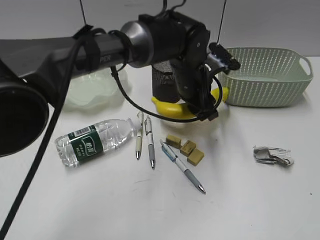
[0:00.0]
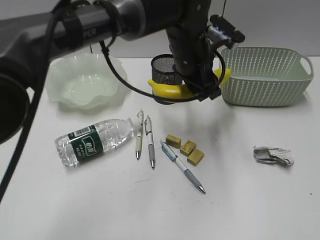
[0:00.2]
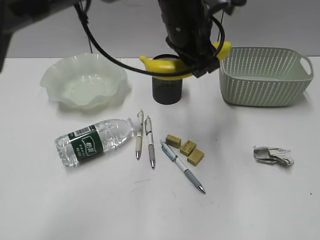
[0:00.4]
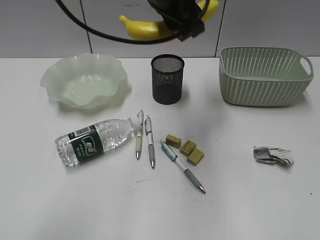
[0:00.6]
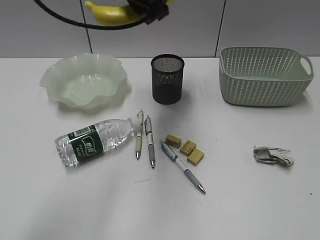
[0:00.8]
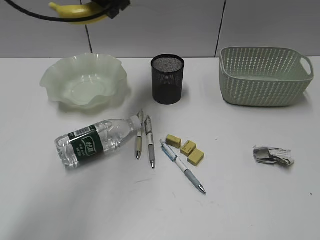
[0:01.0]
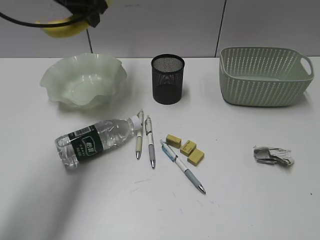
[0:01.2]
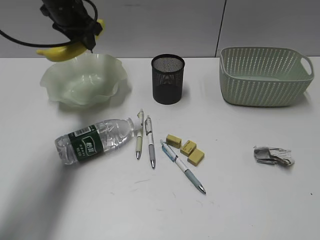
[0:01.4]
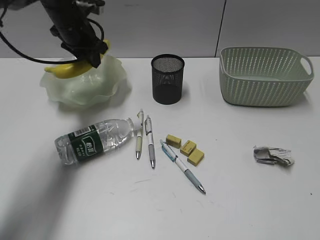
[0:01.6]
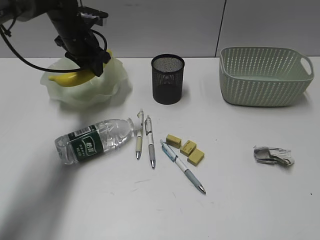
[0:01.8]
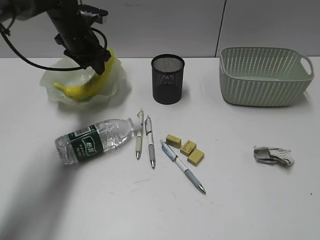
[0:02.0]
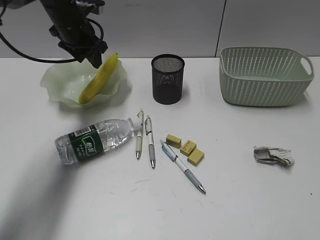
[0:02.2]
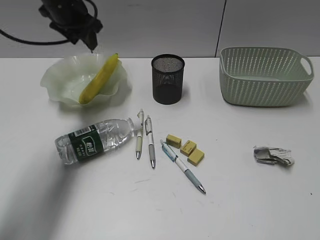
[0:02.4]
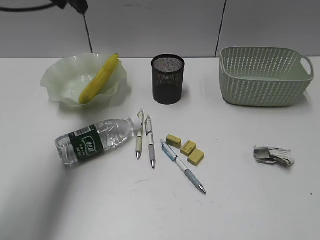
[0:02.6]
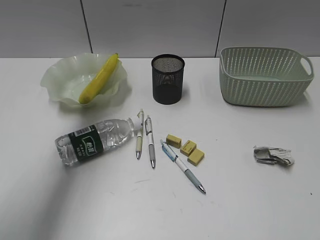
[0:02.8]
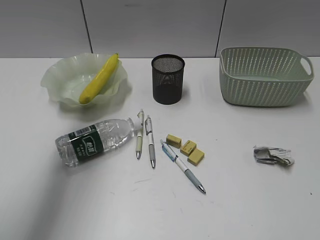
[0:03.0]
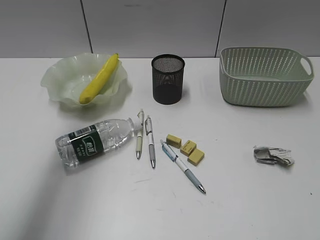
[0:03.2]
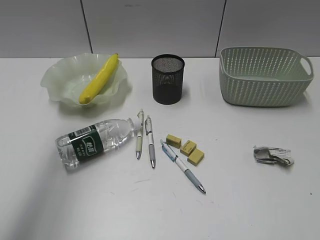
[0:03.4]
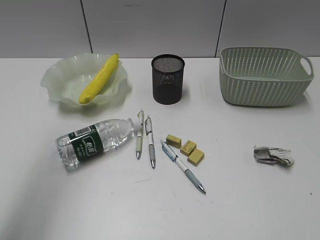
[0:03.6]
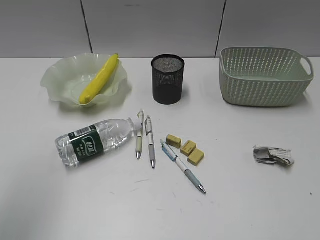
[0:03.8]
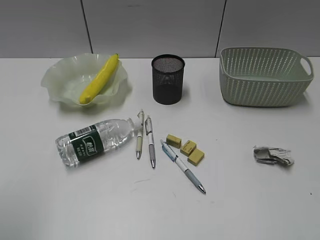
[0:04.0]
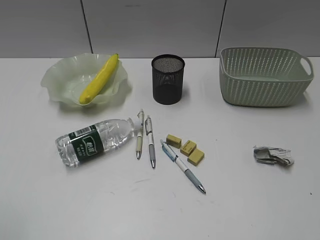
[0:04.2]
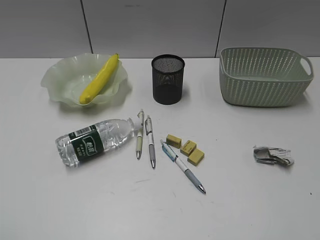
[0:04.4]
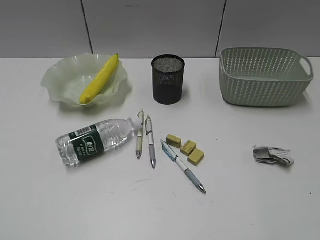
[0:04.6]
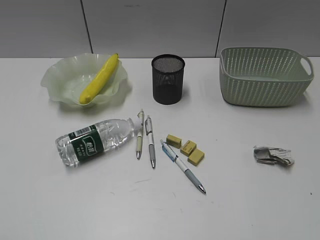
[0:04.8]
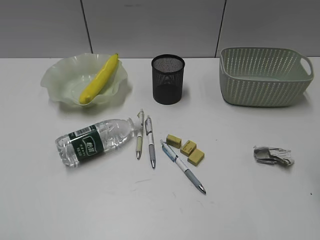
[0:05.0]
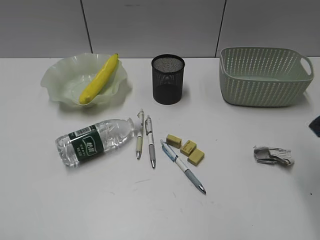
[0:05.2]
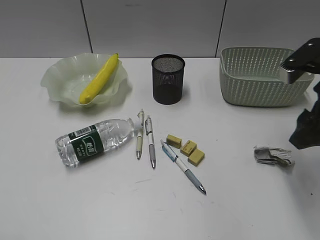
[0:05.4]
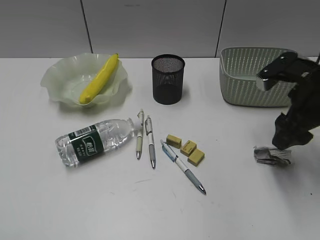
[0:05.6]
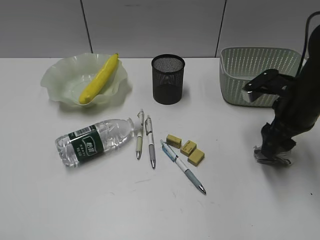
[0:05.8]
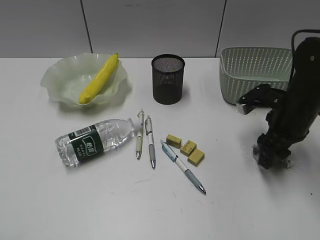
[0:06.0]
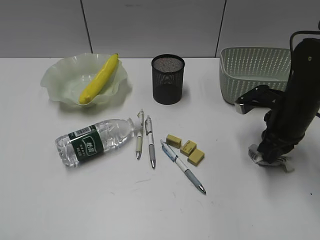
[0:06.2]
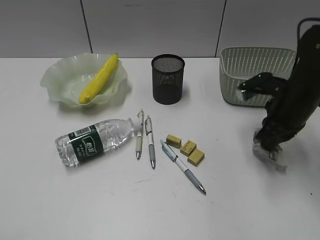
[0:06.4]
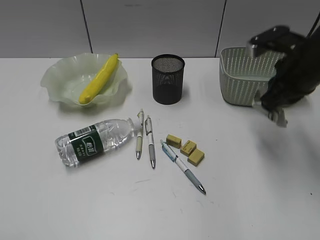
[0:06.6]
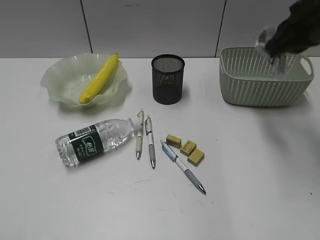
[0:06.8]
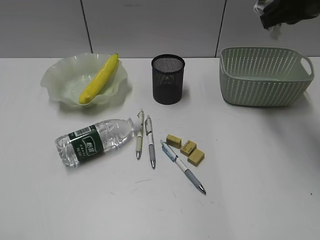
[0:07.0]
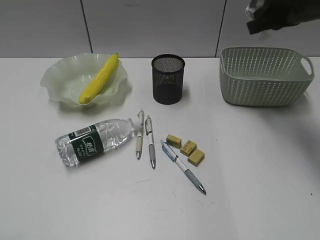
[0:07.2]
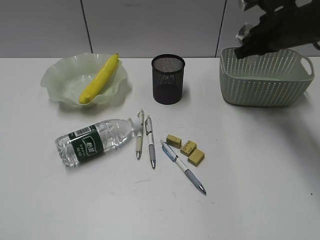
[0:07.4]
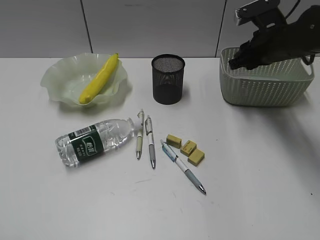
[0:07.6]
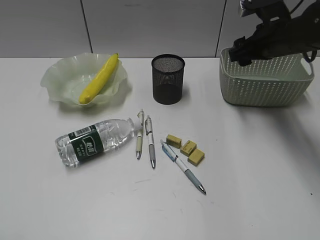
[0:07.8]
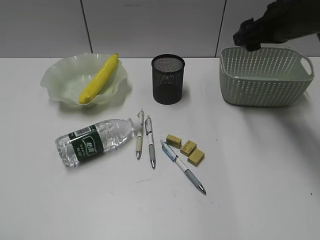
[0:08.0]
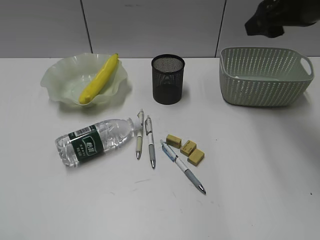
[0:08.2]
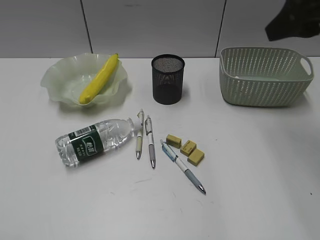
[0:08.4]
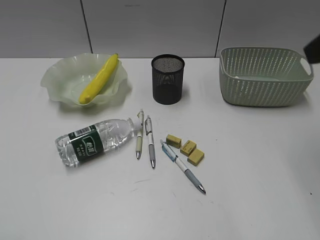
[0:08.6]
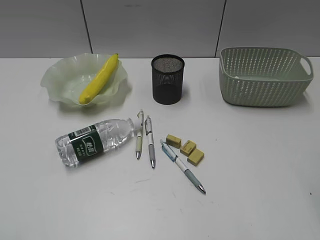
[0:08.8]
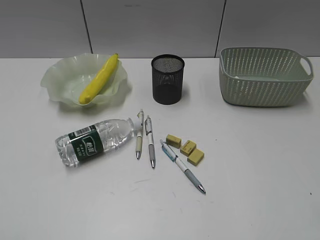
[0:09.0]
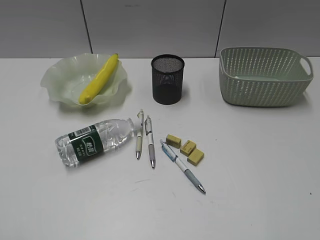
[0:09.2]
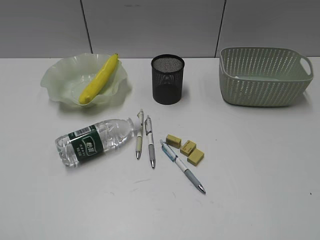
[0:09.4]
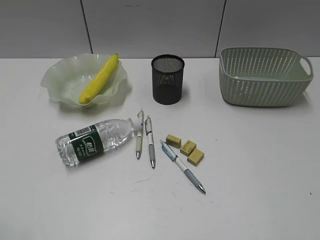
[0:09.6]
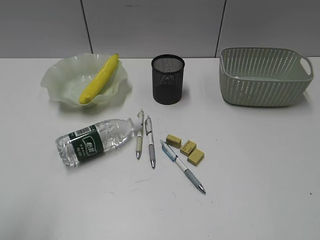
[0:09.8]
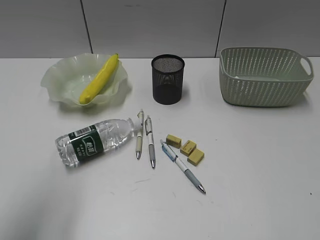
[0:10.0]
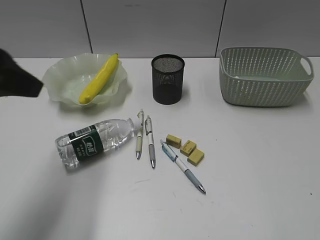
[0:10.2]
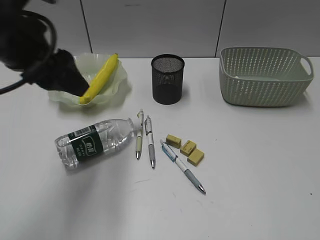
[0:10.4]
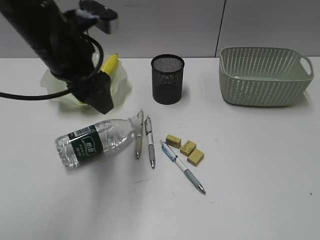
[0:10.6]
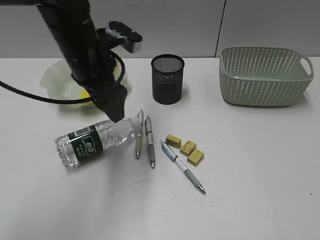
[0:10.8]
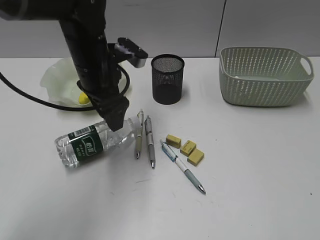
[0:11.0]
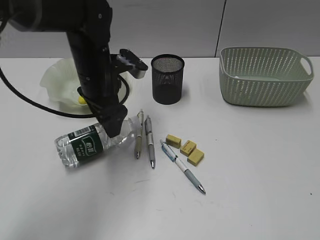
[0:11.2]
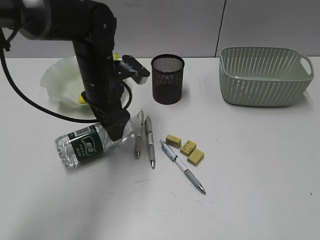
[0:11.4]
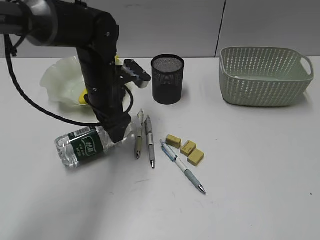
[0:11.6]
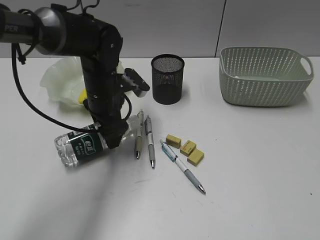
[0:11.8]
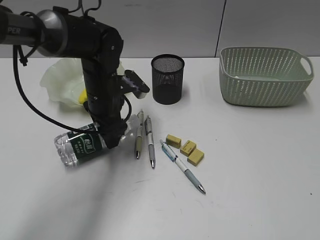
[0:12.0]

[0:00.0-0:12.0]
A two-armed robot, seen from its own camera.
Step, 0.0 to 2.0 s: Place the banana in the plate with left gripper.
Step, 2.2 to 6.2 s: Grasp the waste paper with right gripper.
Step, 6.4 to 7.6 s: Place the waste paper in the basket with right gripper.
0.0 to 1.6 s: The left gripper moves to the left and forward, approximately 30 cm.
1.6 to 3.0 s: The left gripper goes some 30 cm upward and backward.
3.0 to 4.4 s: The left gripper is displaced backward and downward by roughly 40 cm.
4.4 to 6.0 s: The right gripper goes some 35 cm forward and downward.
6.0 to 7.6 s: The right gripper heads forward and upward, covering roughly 10 cm, and closes.
7.6 to 9.0 s: The right gripper is displaced backward and upward by some 35 cm, and opens up.
9.0 to 10.4 s: The left gripper shifts approximately 30 cm forward and to the right. The right gripper goes approximately 10 cm backward.
10.4 to 12.0 s: The left gripper shifts roughly 20 cm downward, forward and to the right.

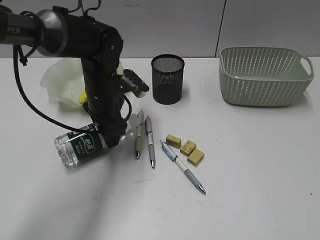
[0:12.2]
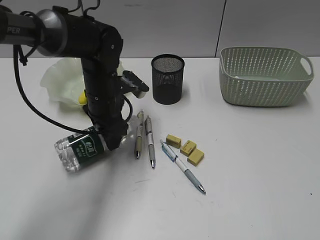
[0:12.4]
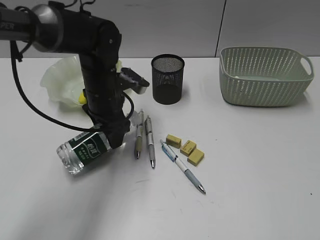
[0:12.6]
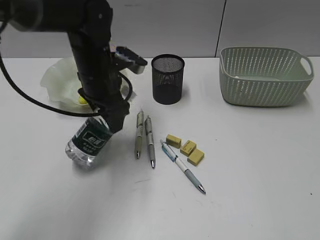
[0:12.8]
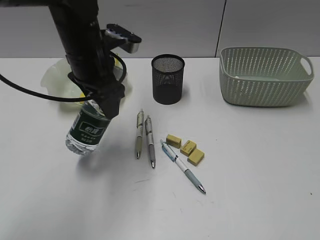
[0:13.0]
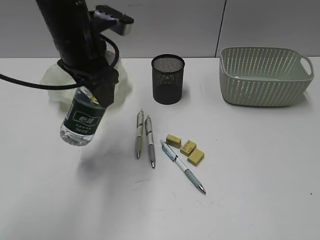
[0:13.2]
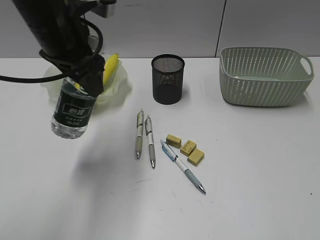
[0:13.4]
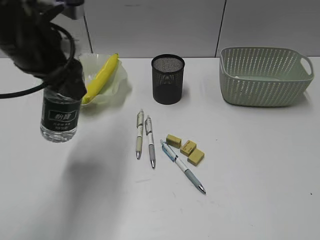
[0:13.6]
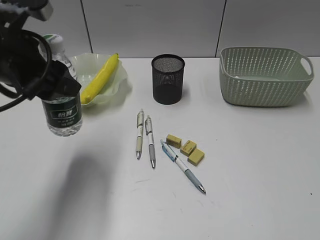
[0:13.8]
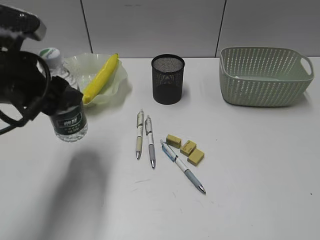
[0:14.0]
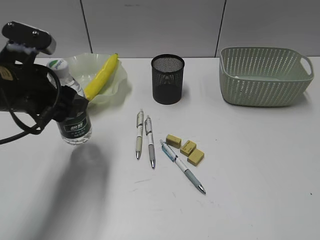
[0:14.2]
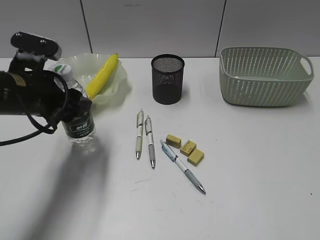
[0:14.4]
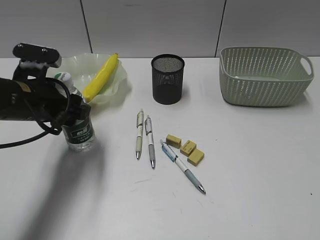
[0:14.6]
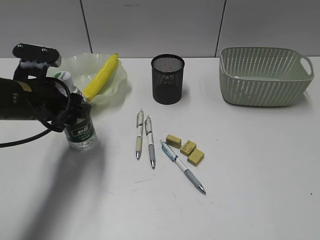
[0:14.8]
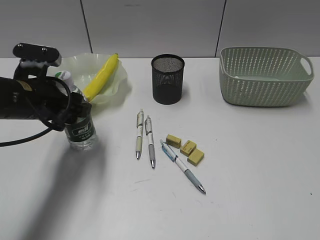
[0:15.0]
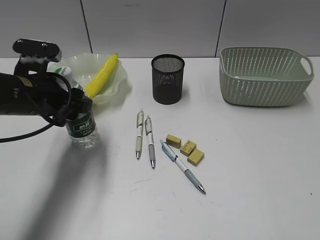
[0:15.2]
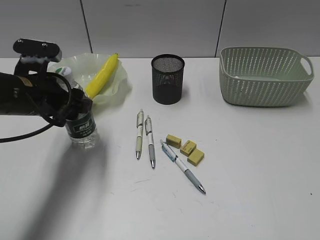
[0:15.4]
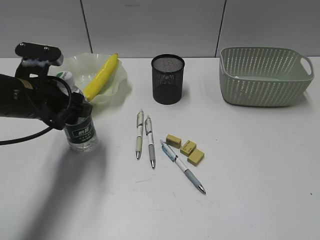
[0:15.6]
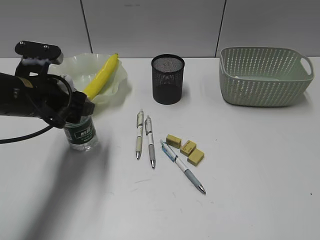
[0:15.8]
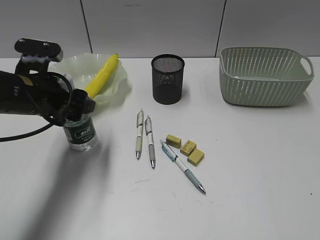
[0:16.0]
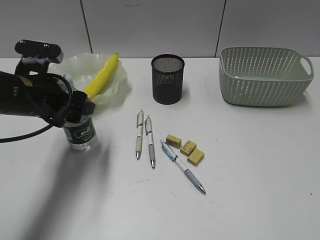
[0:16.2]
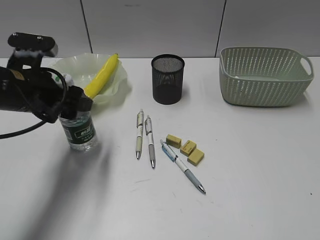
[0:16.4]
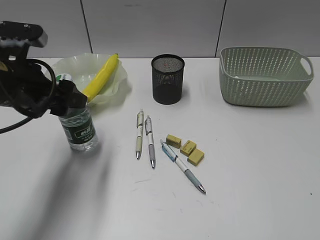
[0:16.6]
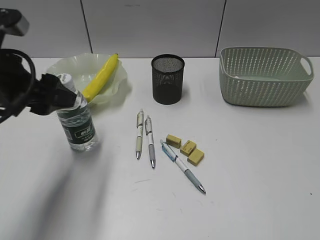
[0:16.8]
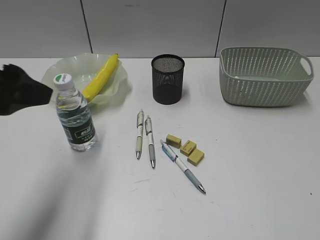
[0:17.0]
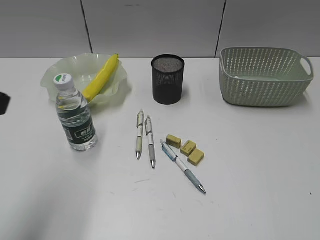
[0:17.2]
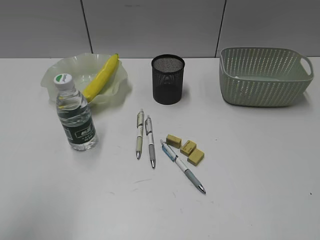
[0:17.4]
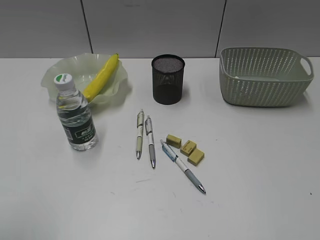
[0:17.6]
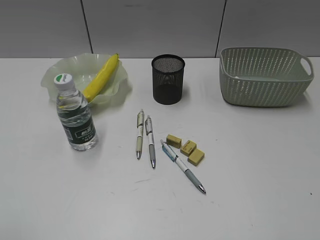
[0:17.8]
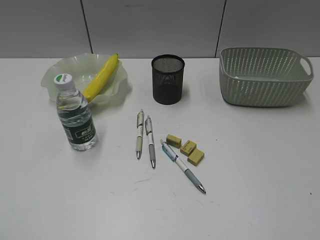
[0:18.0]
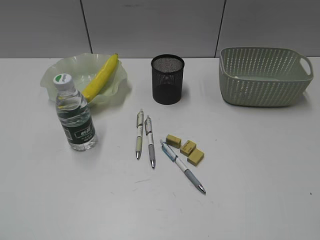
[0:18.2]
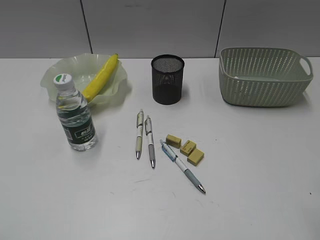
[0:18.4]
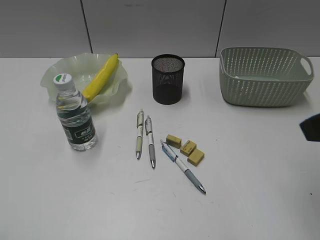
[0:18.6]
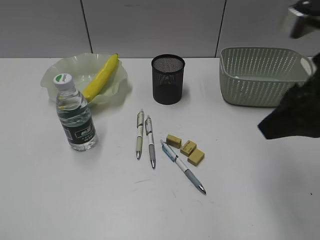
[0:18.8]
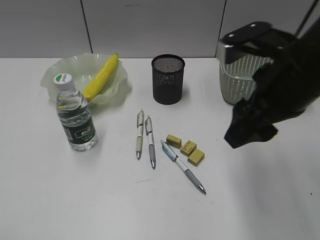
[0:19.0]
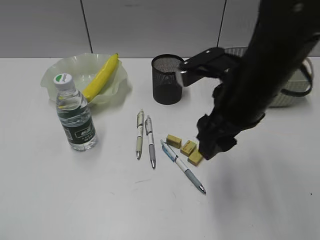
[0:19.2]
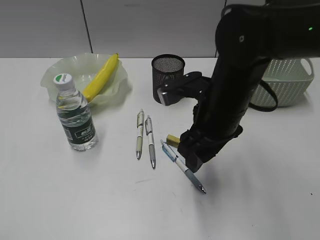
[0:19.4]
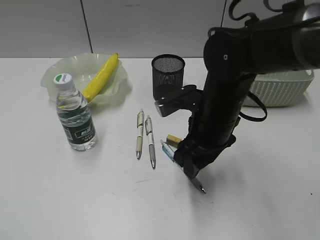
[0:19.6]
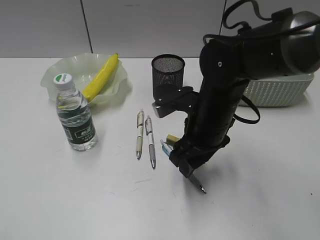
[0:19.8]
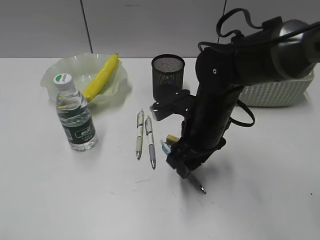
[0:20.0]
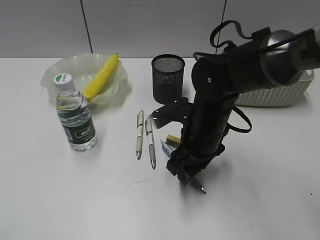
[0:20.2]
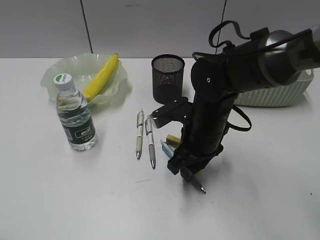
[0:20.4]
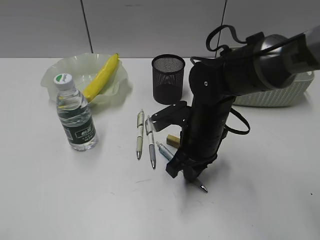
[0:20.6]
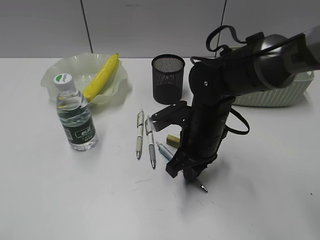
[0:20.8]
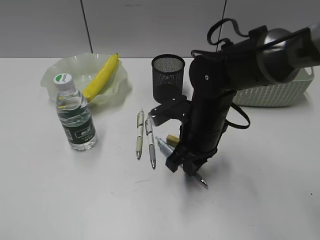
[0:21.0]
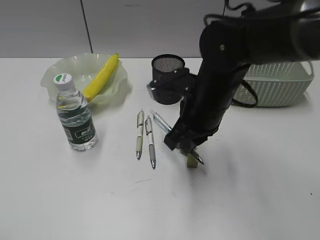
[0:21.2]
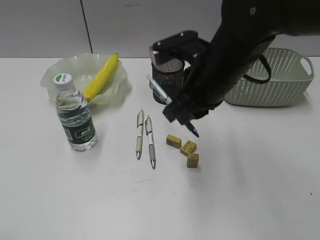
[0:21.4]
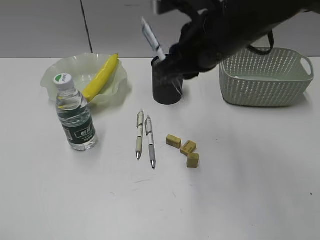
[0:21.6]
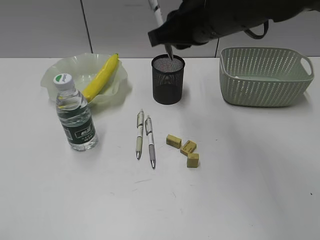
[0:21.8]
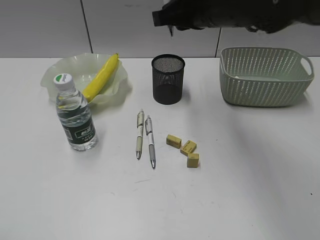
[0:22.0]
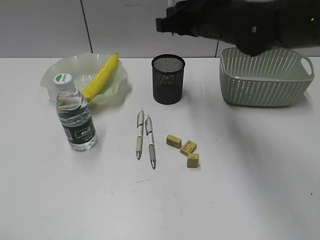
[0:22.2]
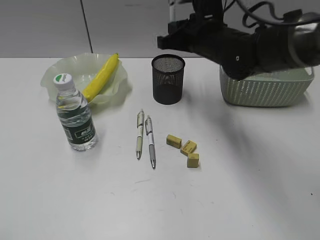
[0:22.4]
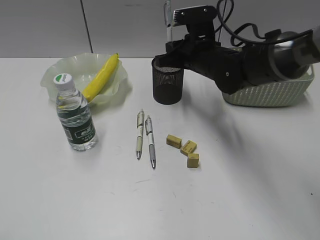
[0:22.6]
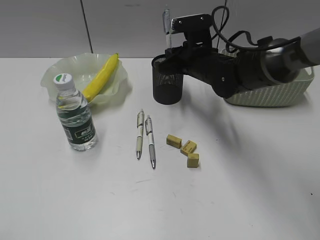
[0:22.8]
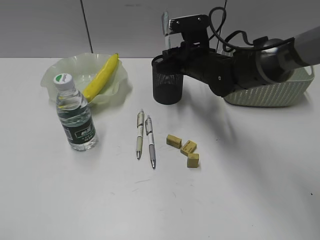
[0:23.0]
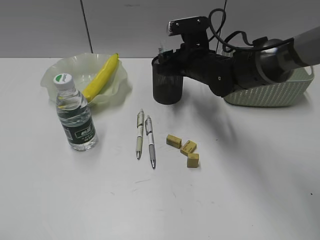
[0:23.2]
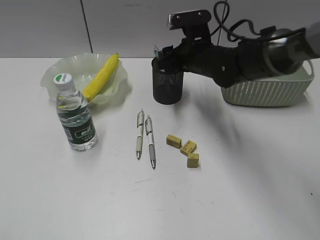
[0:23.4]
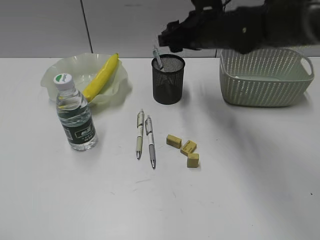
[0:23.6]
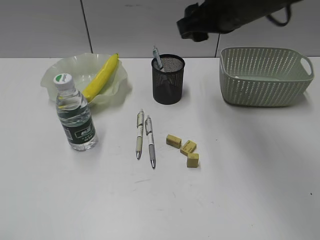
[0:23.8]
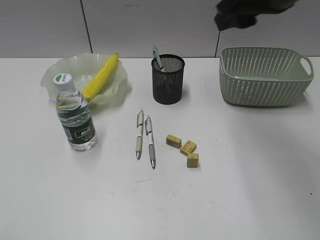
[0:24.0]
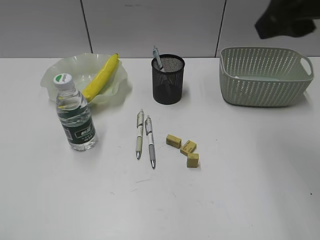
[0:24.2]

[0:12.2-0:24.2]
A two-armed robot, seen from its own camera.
Step, 12.4 to 16.8 s: Stand the bottle with left gripper.
Step, 17.0 to 20.8 s: Grasp the blue pen with right gripper.
Step, 21.0 to 23.4 s: Place the blue pen in pen holder with right gripper.
12.2 to 13.8 s: The left gripper shifts about 20 cm upward, backward and to the left.
13.8 to 15.2 s: The left gripper moves downward, about 10 cm.
15.2 to 16.6 s: The grippers stay close to where they were, moving slightly.
16.6 to 18.2 s: The left gripper heads backward and to the left, covering roughly 30 cm.
18.2 to 19.8 s: The right gripper goes about 35 cm forward, to the left and downward.
19.8 to 21.2 s: The right gripper closes up.
21.2 to 22.6 s: The right gripper shifts about 10 cm forward.
22.6 to 24.2 s: The right gripper moves upward, backward and to the right, some 25 cm, and opens.
